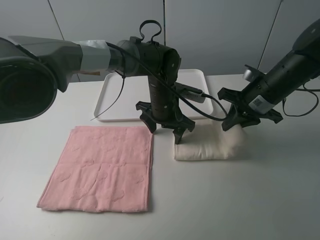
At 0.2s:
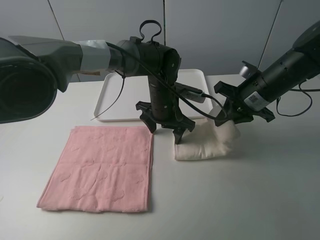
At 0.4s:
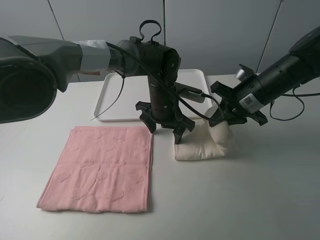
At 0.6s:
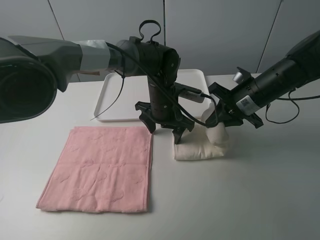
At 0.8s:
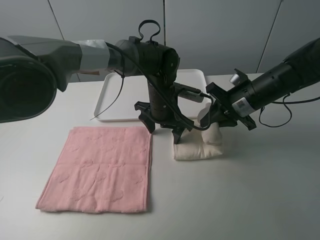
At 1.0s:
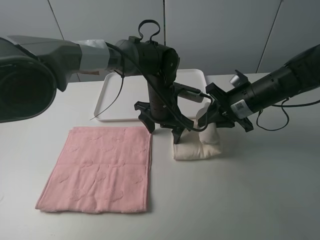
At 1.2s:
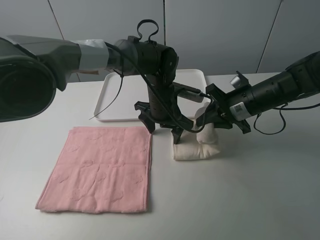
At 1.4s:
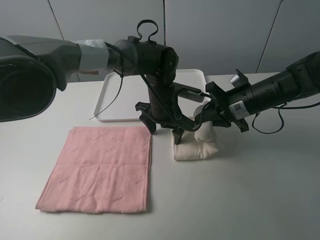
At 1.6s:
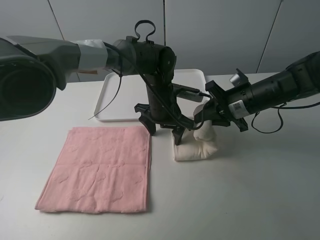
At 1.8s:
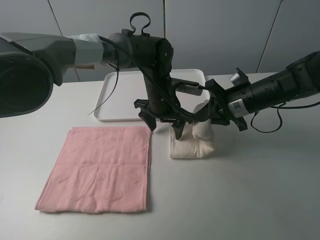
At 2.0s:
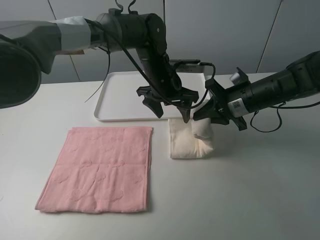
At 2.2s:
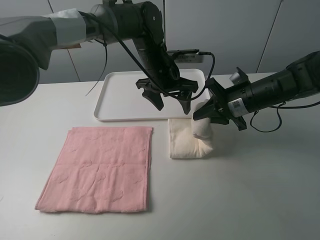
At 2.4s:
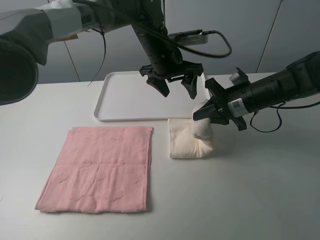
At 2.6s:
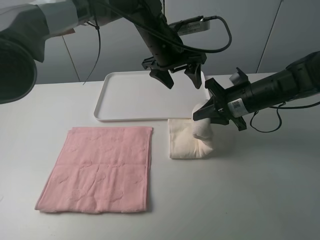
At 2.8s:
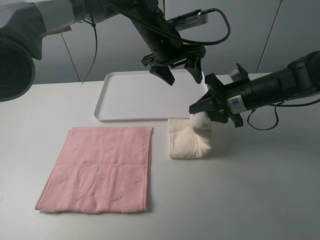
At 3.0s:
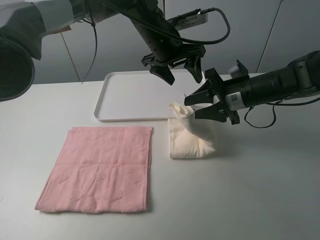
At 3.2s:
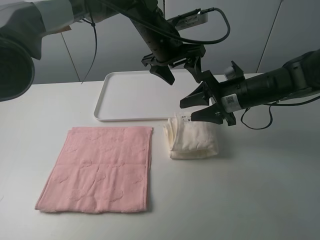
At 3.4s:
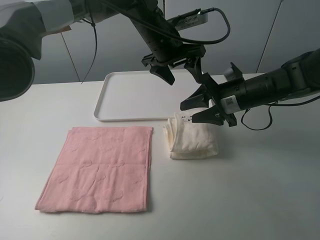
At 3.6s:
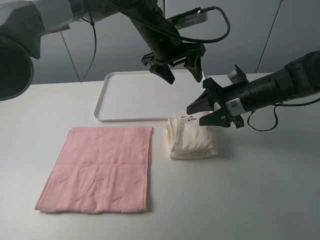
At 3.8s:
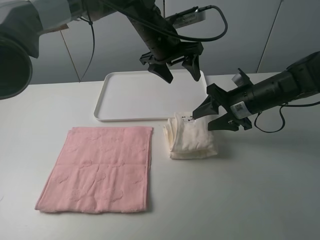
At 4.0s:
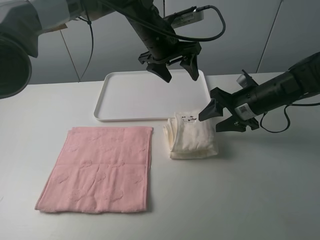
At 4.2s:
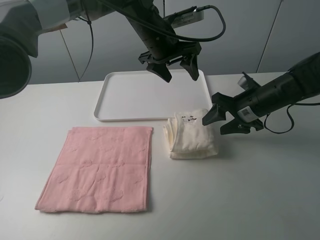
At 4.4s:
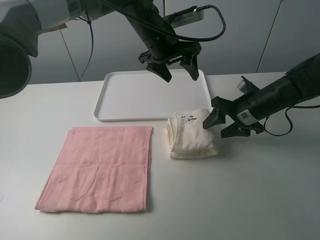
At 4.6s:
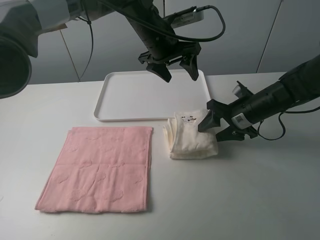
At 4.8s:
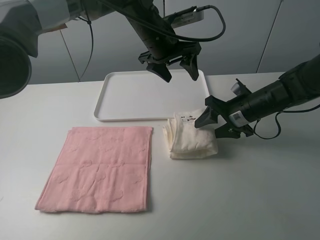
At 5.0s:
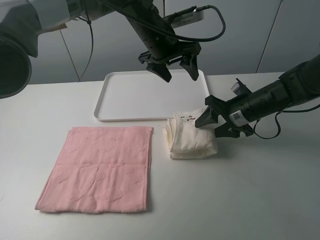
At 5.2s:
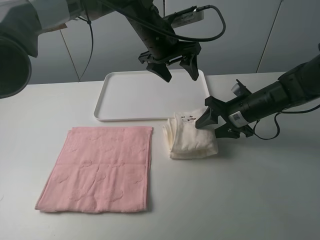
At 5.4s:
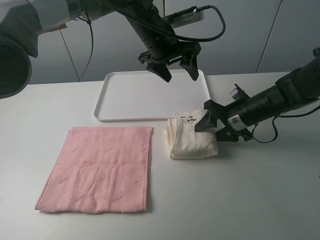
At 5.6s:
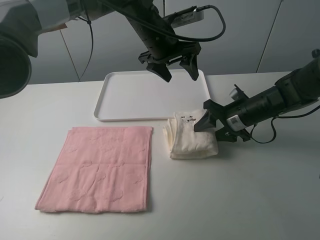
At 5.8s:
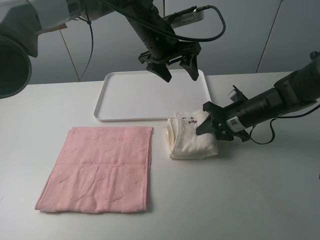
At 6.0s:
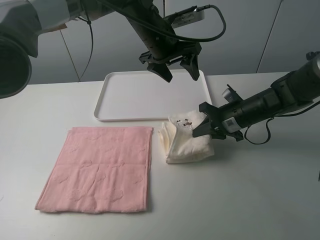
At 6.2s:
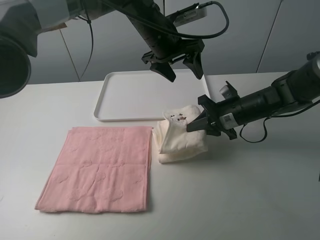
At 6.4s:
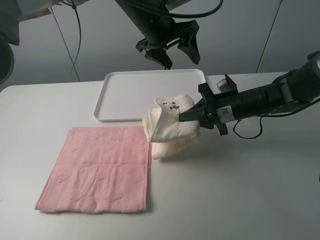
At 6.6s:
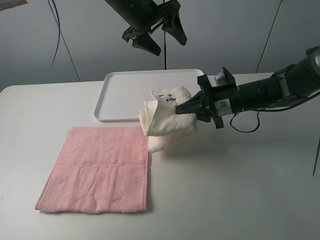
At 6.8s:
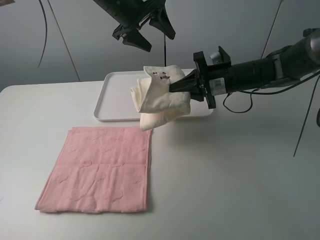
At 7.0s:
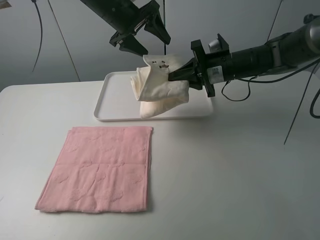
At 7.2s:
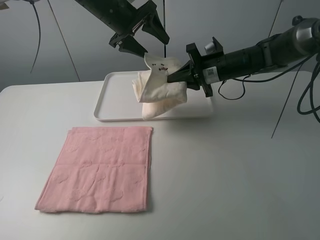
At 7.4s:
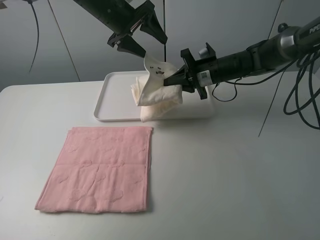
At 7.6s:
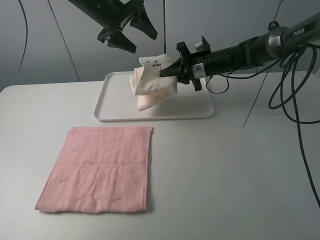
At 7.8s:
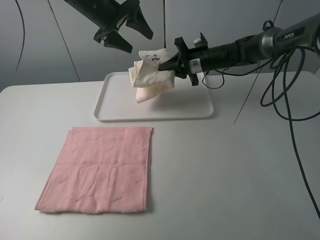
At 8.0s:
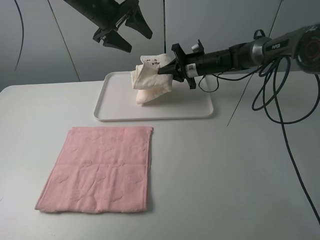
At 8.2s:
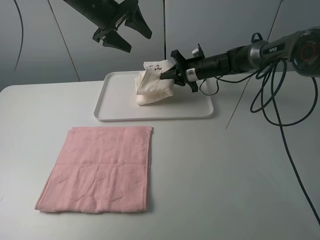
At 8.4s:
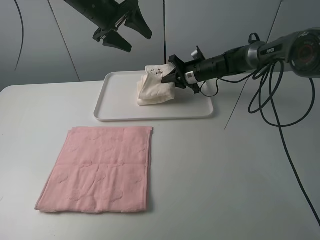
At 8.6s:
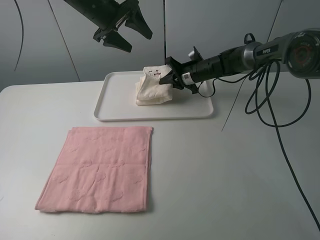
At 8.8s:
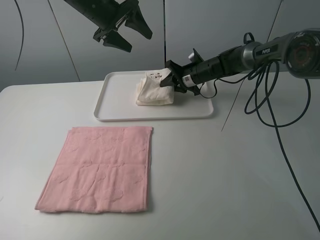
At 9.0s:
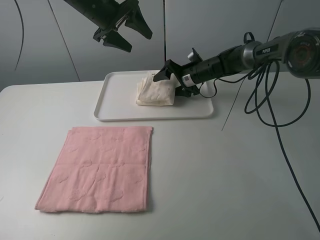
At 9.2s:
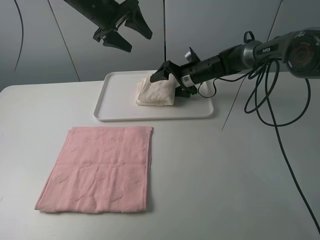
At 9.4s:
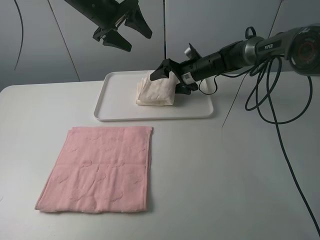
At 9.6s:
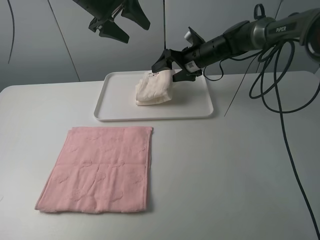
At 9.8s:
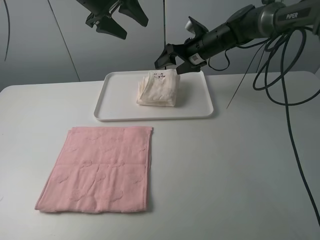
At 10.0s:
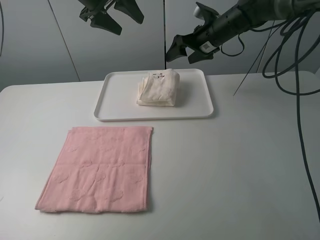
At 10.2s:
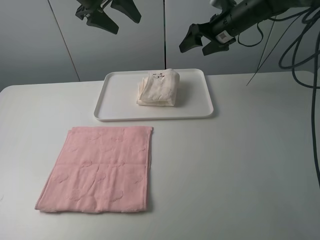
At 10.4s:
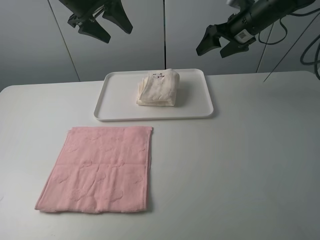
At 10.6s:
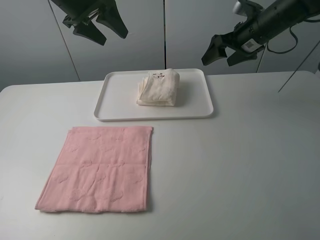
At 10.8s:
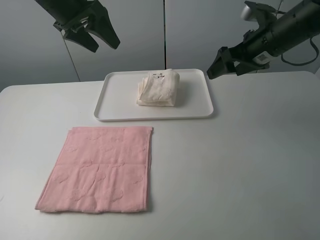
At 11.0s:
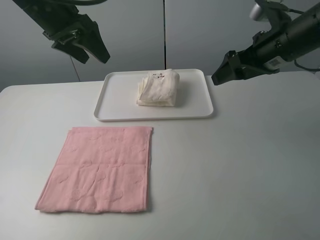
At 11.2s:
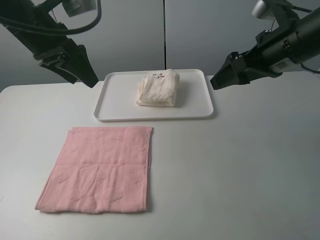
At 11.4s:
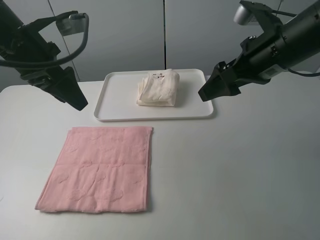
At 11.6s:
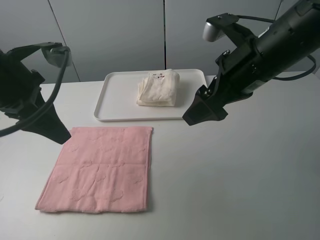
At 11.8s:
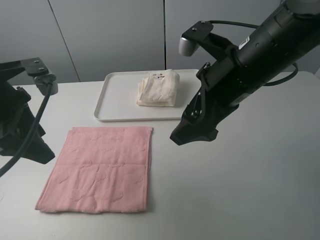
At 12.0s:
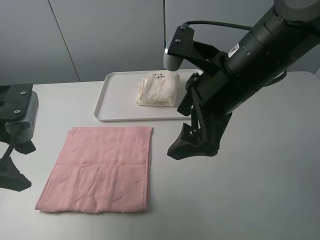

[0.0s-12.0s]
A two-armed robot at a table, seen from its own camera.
Task of the whole recording: fold one of the towels by two grippers and place it on the tray,then fold another towel by two grippers and place it on the folded towel.
Step, 0.0s to 3.4s: Fold the white towel from right to left with right gripper.
Step, 3.6s to 6.2s: Grasp the white towel with the right gripper.
Step, 6.4s to 9.8s: Move the white towel to the plate with the right gripper.
1.6s to 3.0s: The right gripper opens its fingers; the left gripper goes about 10 cm upward.
4.4s to 6.0s: The right gripper closes up.
6.0s to 7.6s: The right gripper is displaced forward and to the left by about 15 cm, while the left gripper is displaced to the left by roughly 15 cm.
7.6s to 9.0s: The right gripper shifts about 5 cm downward, and opens its fingers.
9.0s to 10.4s: The left gripper ends up approximately 5 cm from where it was, while the right gripper moves upward and to the right, about 20 cm.
10.4s to 12.0s: The left gripper shifts roughly 25 cm backward; the right gripper heads backward and to the left, covering roughly 30 cm.

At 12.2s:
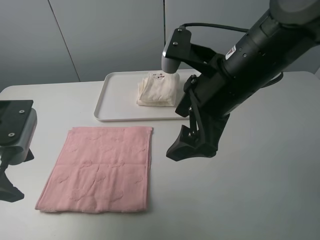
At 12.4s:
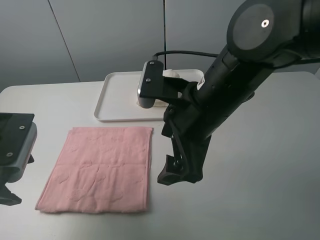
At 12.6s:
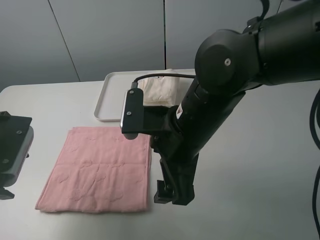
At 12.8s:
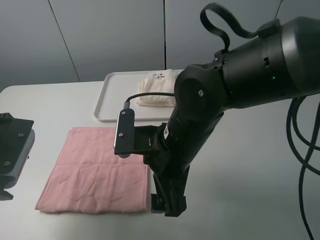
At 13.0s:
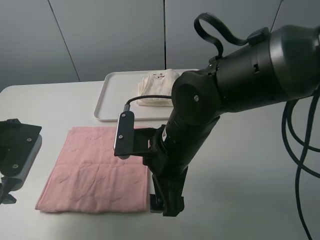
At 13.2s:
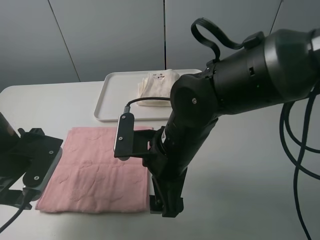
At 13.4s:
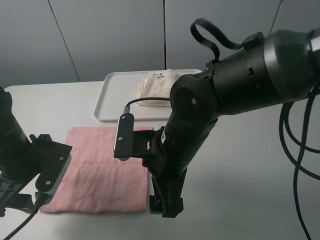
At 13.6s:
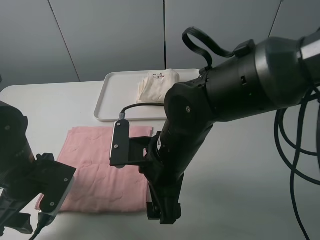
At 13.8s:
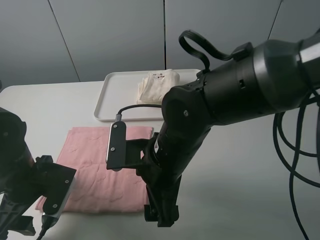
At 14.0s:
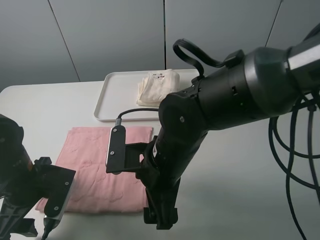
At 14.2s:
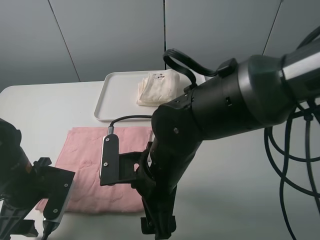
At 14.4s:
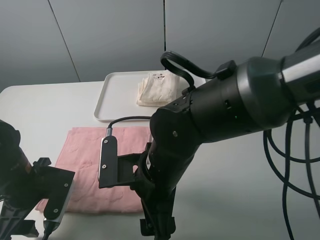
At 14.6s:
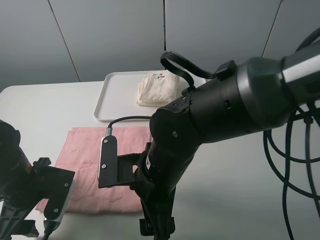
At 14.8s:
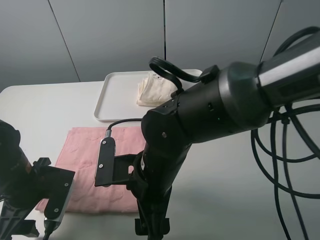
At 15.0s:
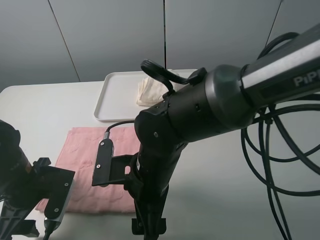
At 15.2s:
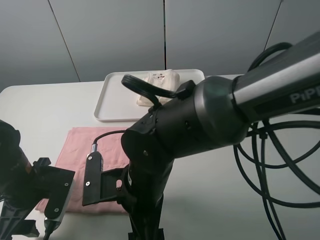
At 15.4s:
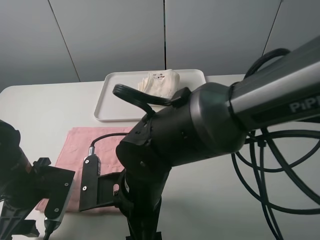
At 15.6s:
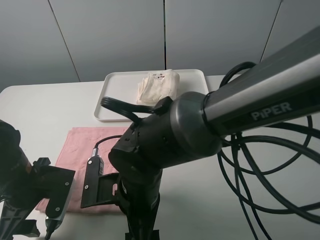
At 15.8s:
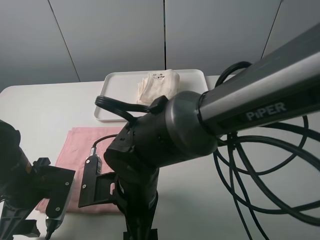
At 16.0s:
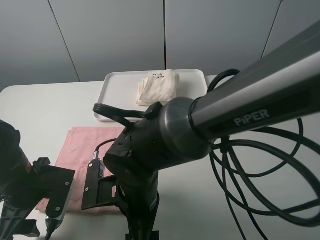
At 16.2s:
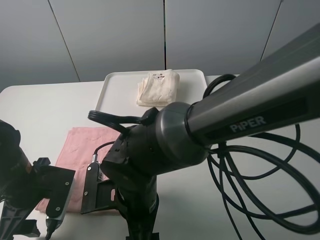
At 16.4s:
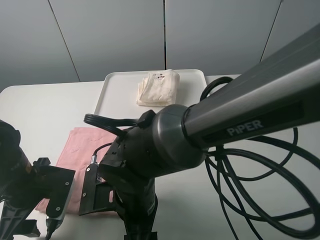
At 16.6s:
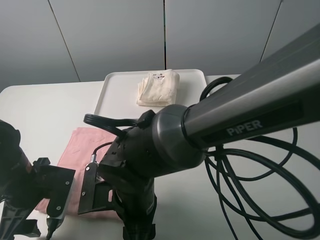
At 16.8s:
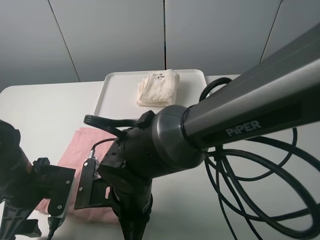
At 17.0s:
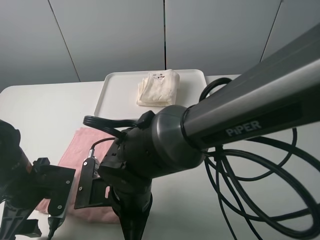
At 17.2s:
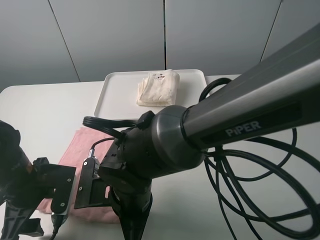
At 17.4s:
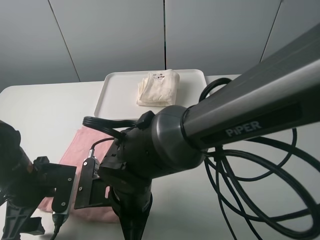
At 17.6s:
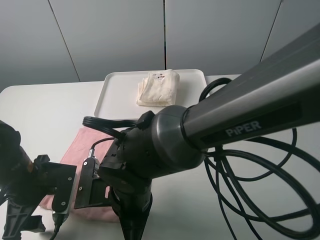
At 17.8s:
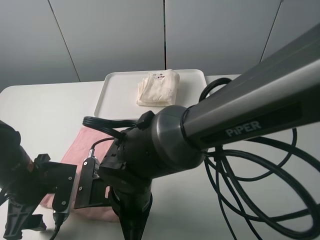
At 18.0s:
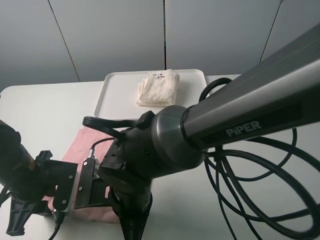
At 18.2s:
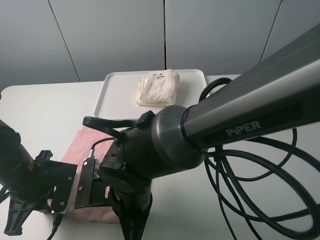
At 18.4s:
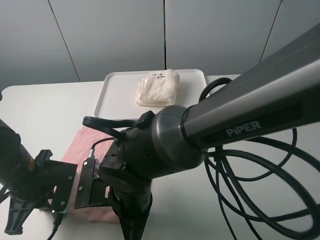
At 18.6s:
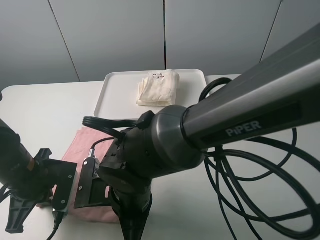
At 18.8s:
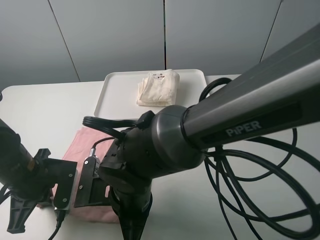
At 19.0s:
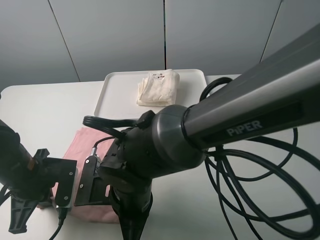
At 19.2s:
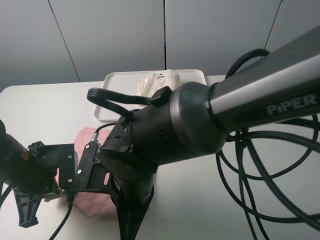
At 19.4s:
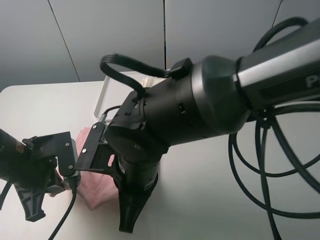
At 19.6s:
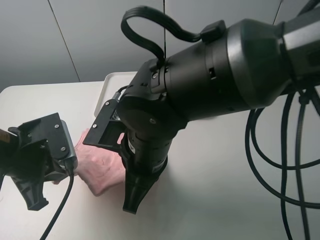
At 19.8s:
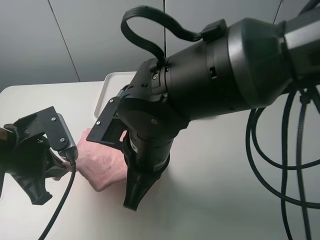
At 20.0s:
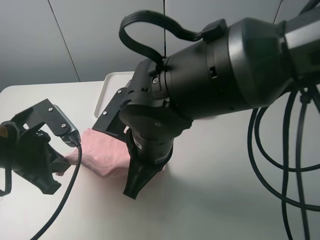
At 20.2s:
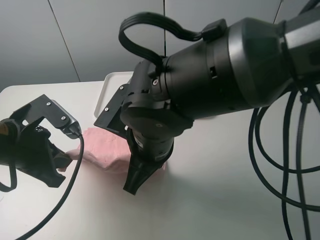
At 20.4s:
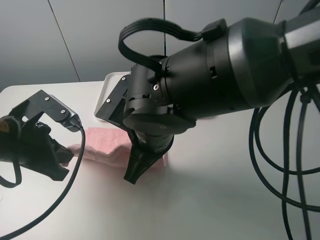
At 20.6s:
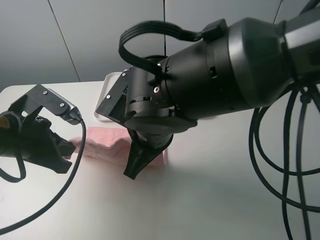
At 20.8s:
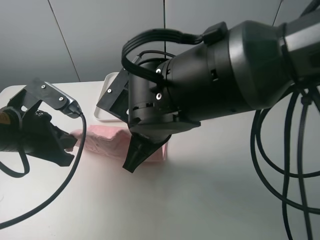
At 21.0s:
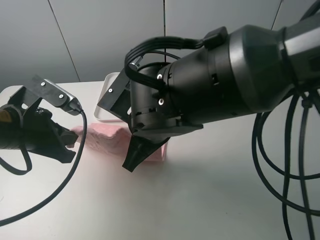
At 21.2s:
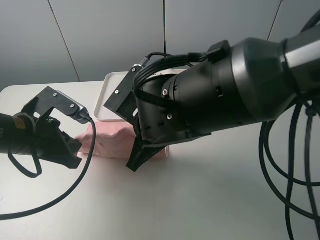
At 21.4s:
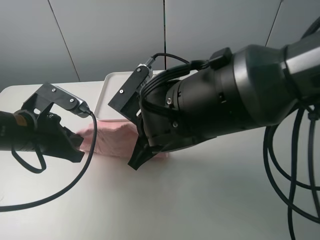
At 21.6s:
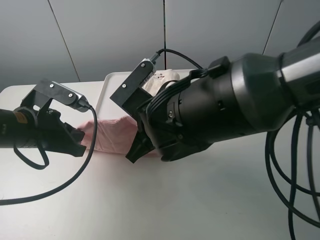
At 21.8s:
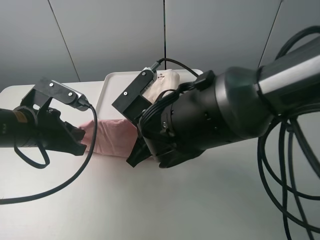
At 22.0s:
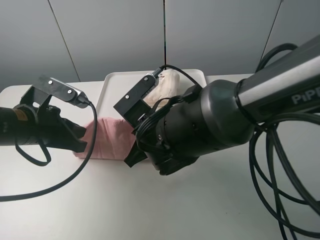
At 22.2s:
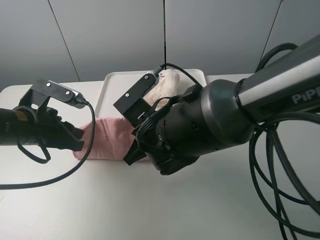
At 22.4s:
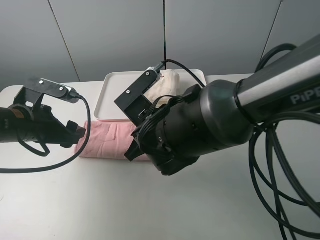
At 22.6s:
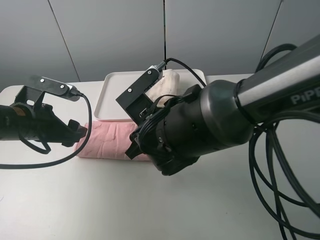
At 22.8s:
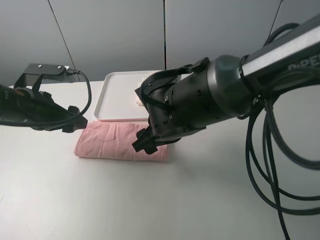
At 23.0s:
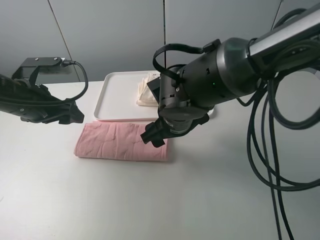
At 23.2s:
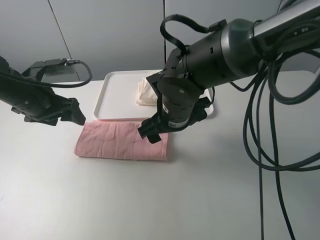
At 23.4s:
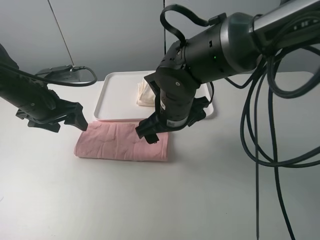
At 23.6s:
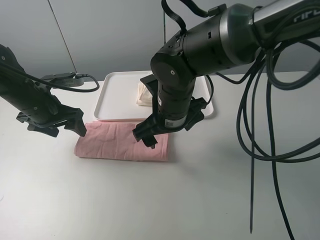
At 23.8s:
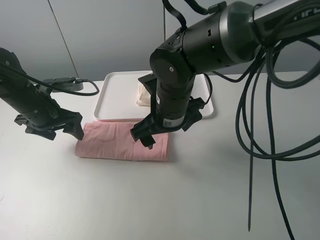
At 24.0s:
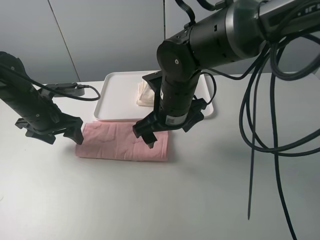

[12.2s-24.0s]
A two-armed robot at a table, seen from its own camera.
Task of the whole recording: fold one of the towels by two grippers and place it on the tray,then fold another towel by two grippers and place it on the folded towel.
Step, 12.2s to 18.8s: Grasp the pink towel with the left gripper.
Step, 19.0s to 22.8s: Fold the pink towel upwards with the left gripper.
12.2s to 13.6s: The right gripper moves downward and to the left, about 15 cm. The left gripper shifts some 10 cm downward.
13.6s to 15.2s: The right gripper ends up approximately 5 cm from where it was.
15.2s to 16.6s: The right gripper closes.
16.6s to 18.2s: The right gripper closes its fingers; the left gripper closes its fingers.
18.2s to 19.6s: Both grippers travel together upward, some 10 cm.
21.0s to 22.6s: The left gripper ends up about 5 cm from where it was, and opens up. The right gripper opens.
22.6s to 24.0s: Both grippers move forward, some 5 cm.
